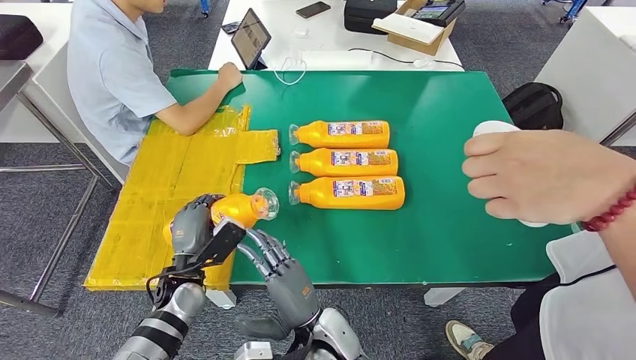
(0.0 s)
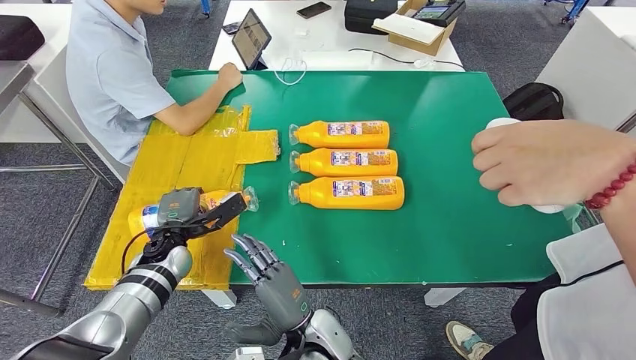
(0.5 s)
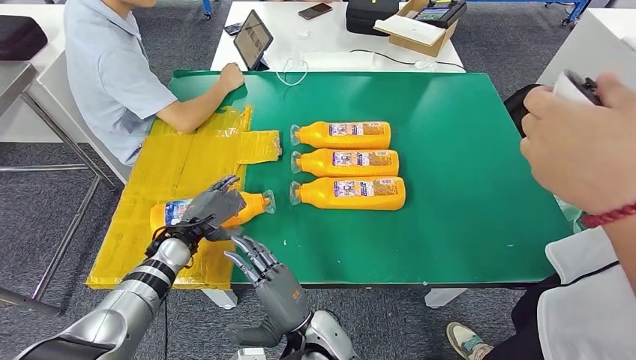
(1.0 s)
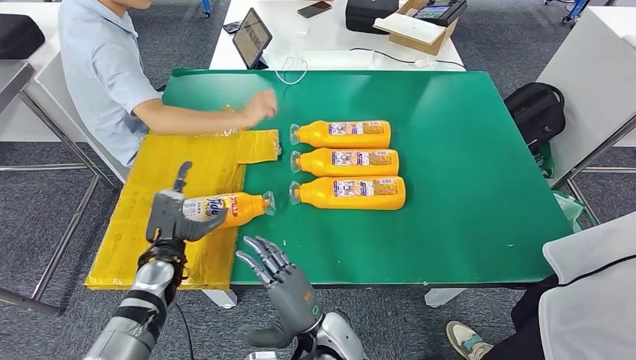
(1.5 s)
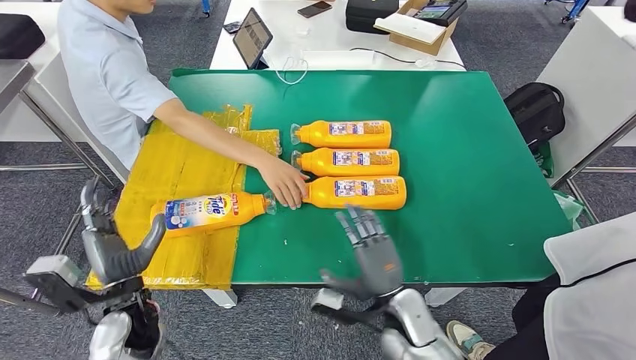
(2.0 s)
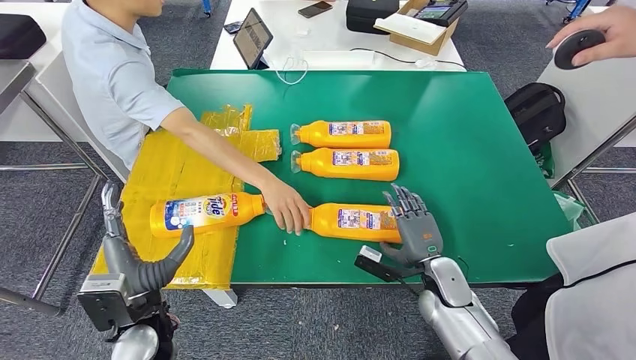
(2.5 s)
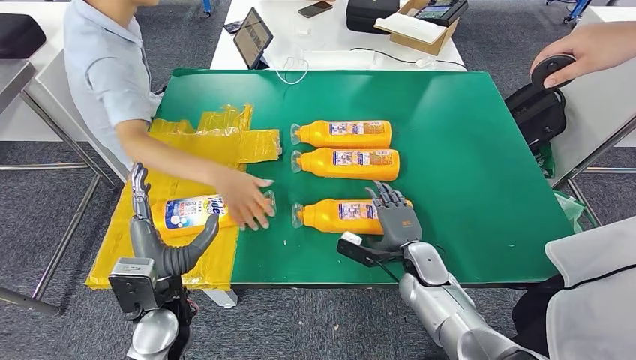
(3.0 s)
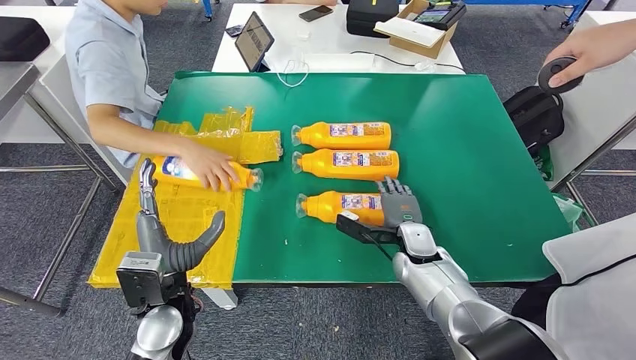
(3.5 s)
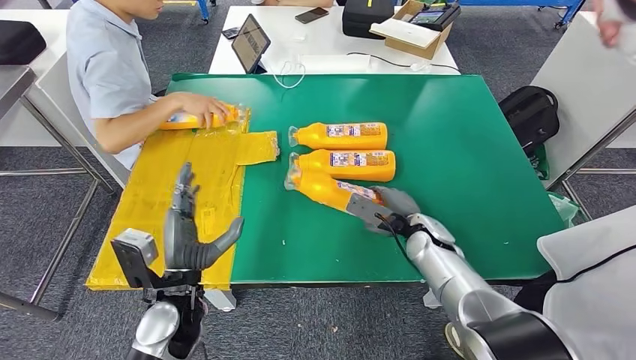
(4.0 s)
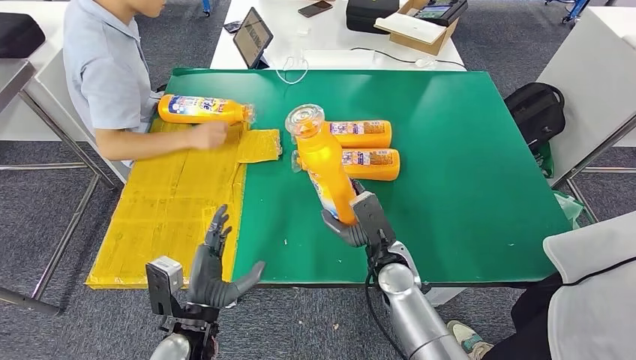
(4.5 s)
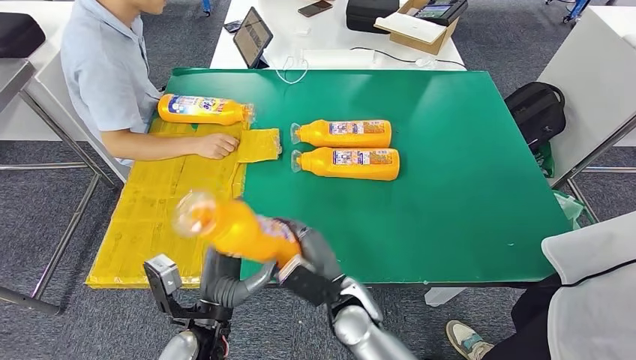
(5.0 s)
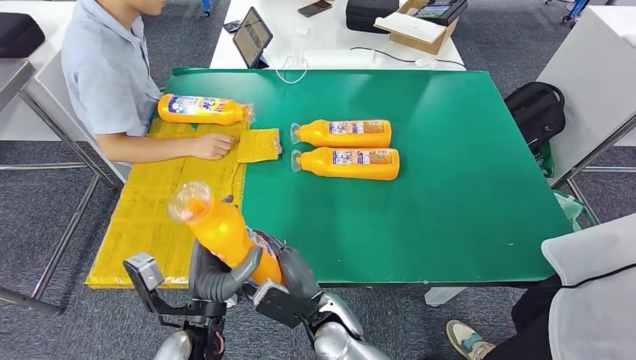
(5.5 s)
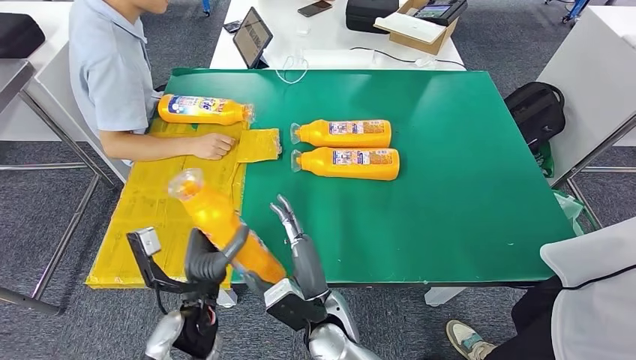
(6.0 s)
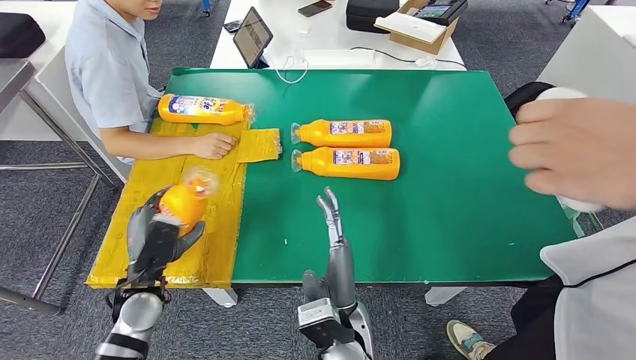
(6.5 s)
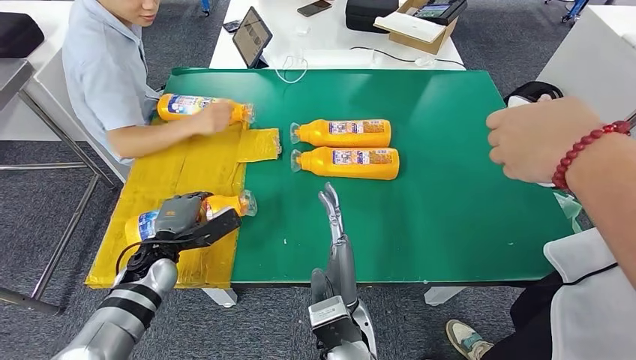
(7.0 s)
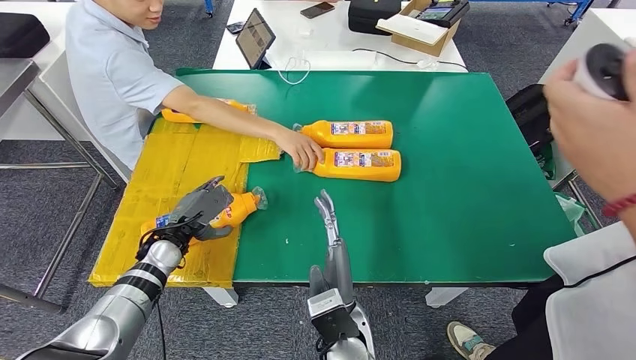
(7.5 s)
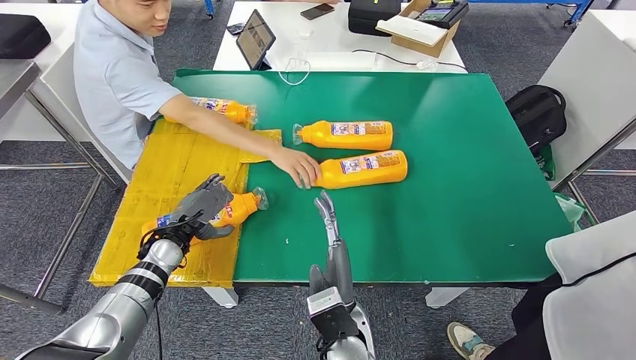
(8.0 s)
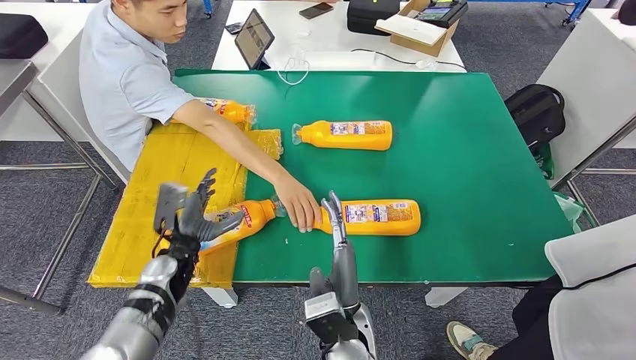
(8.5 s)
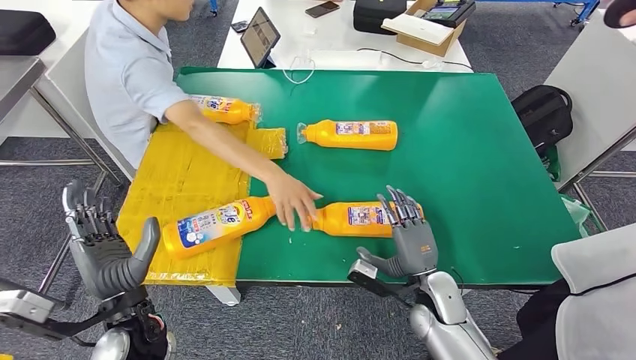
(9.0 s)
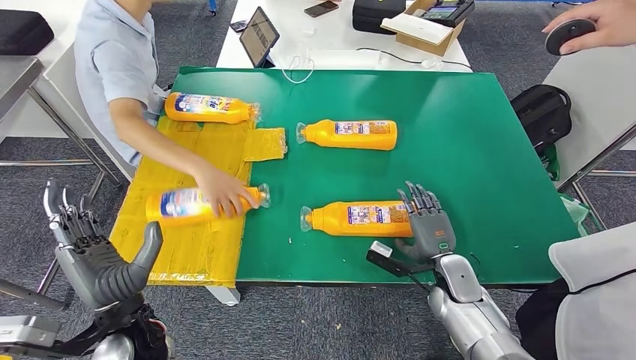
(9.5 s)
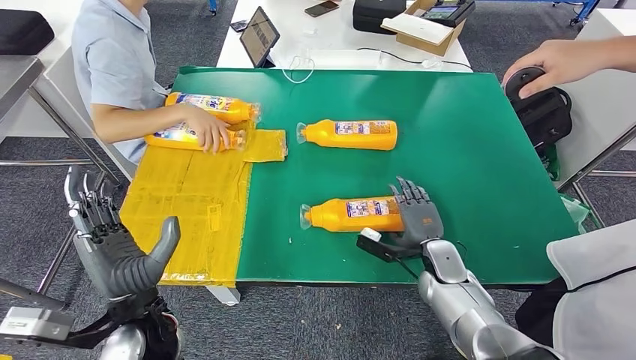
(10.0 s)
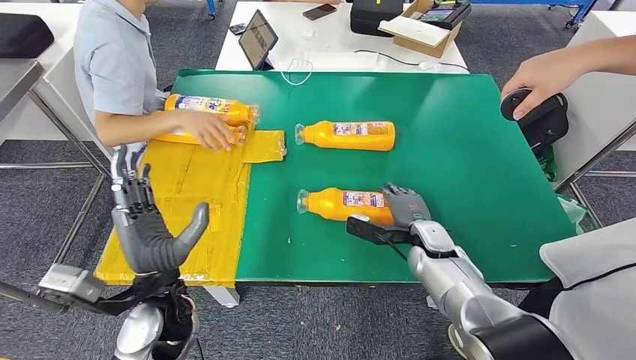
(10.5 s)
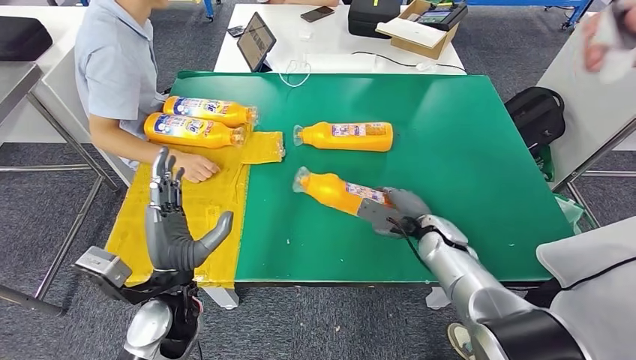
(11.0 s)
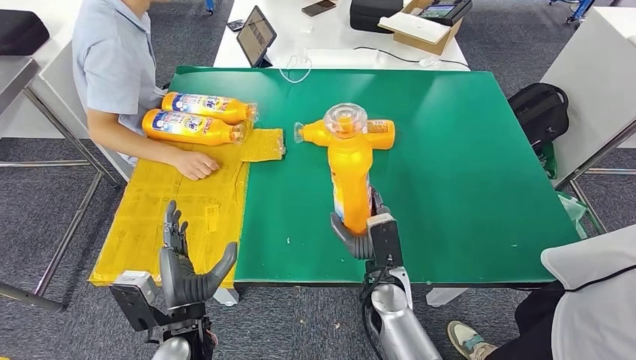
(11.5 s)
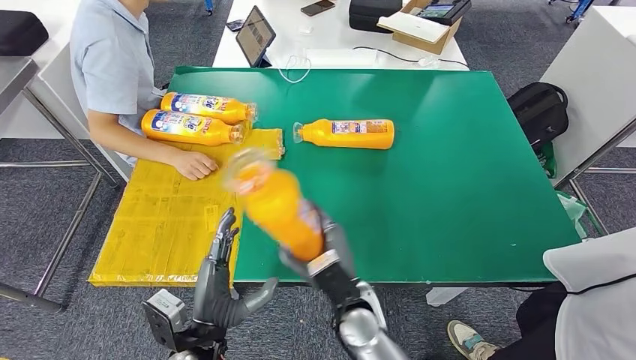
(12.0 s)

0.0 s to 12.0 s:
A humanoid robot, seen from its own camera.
Step, 0.0 to 2.5 s: Flip the fast-moving consumer goods bottle to the front side.
Step, 3.5 to 5.5 s: Pick up the fast-moving consumer goods bottle from the table.
Step, 6.0 to 8.5 s: Flip the fast-moving consumer goods bottle to the front side.

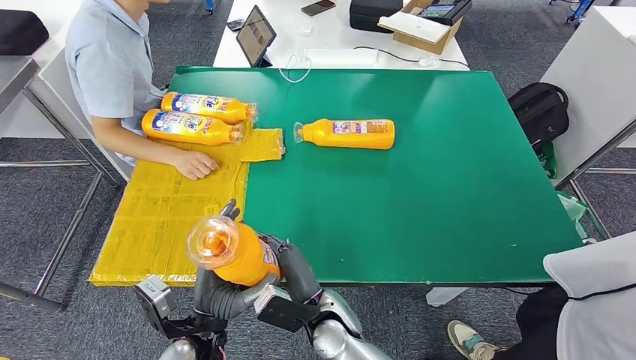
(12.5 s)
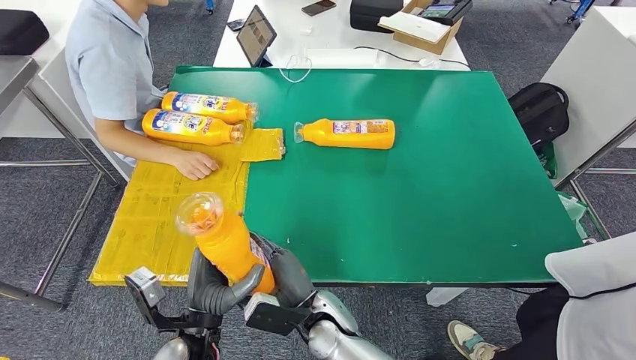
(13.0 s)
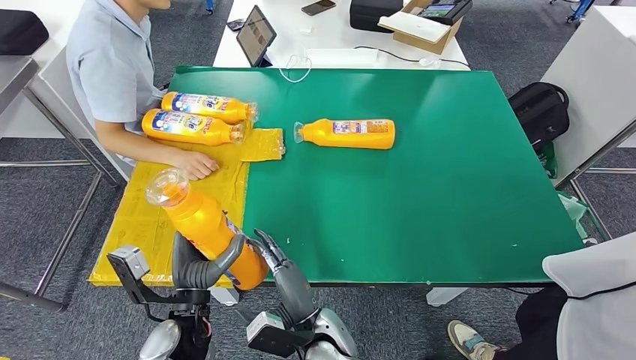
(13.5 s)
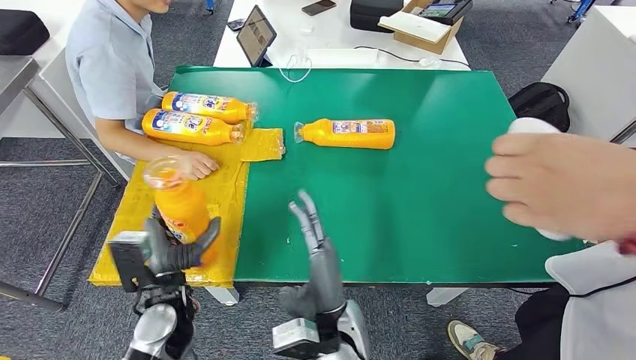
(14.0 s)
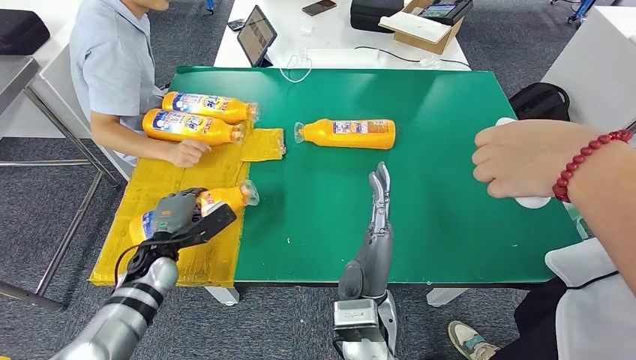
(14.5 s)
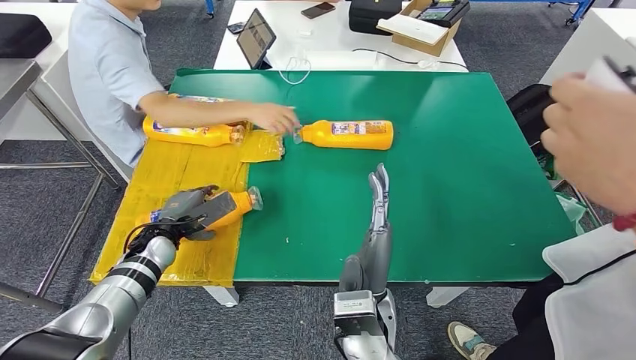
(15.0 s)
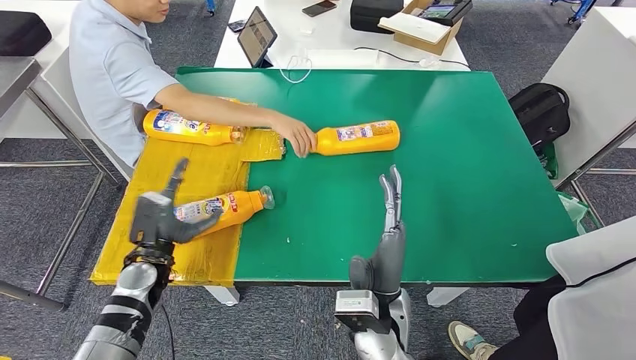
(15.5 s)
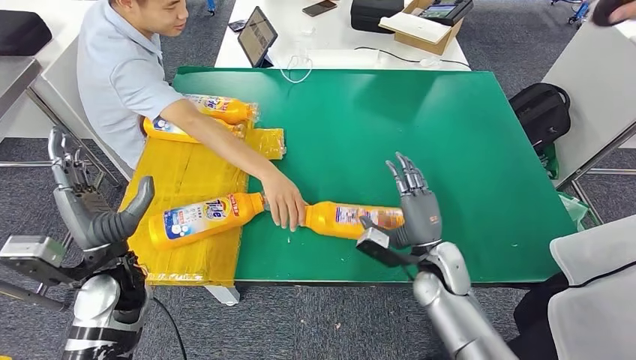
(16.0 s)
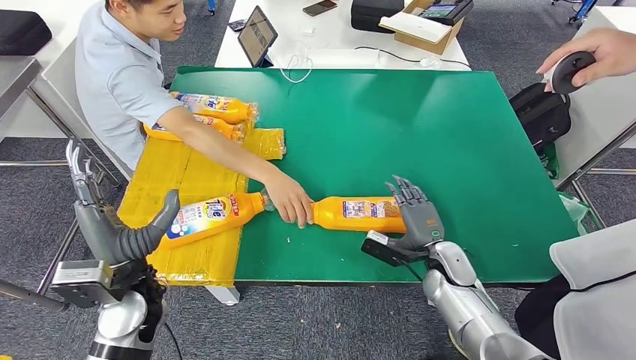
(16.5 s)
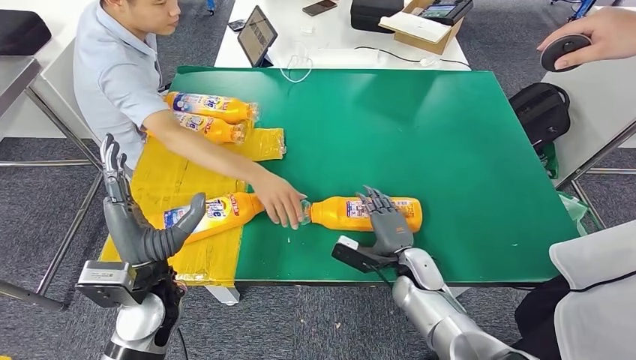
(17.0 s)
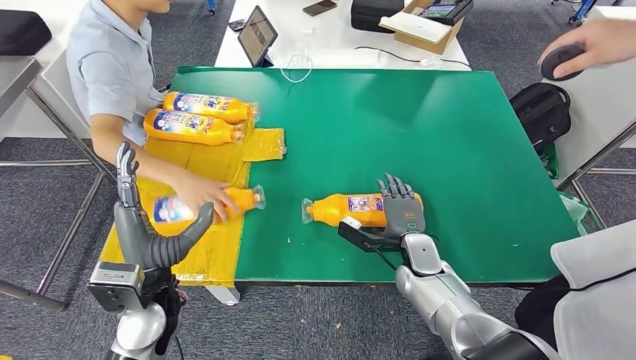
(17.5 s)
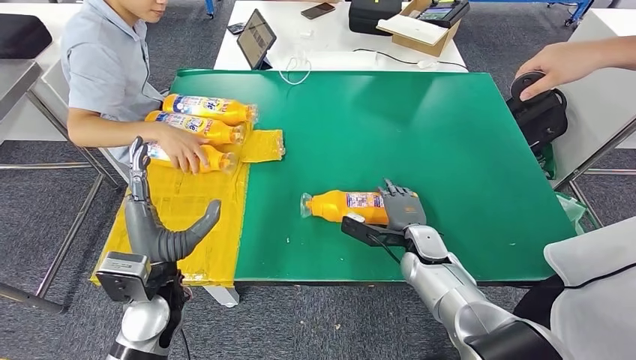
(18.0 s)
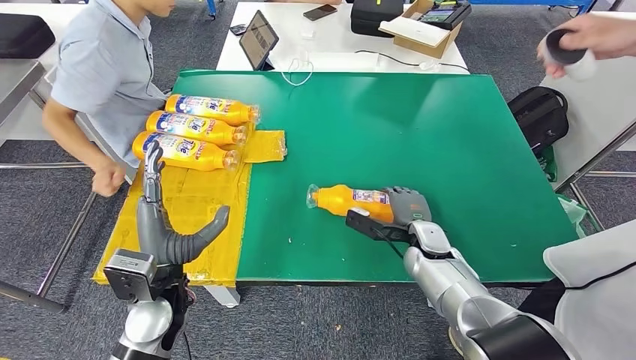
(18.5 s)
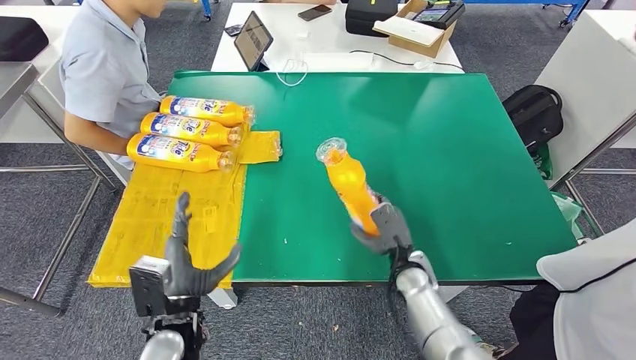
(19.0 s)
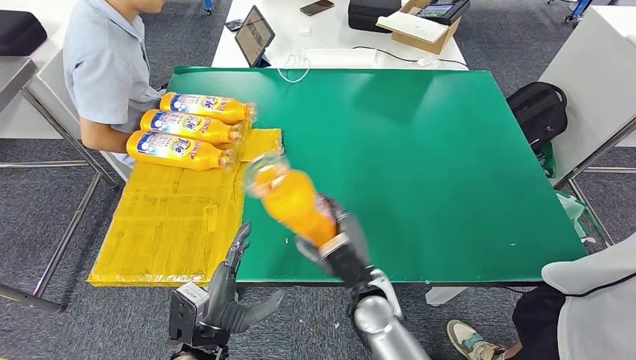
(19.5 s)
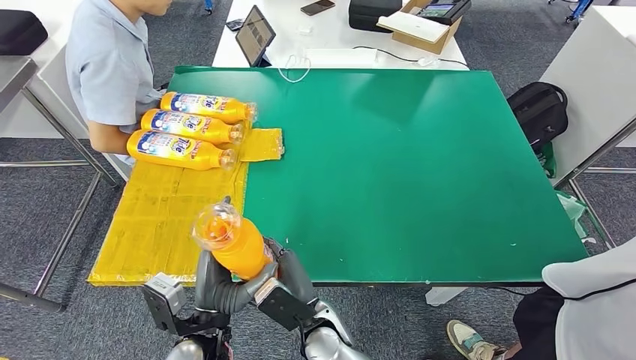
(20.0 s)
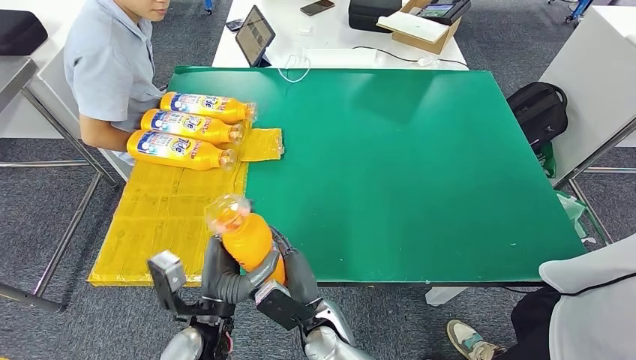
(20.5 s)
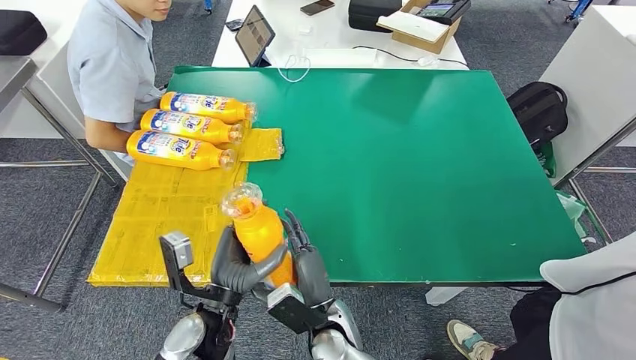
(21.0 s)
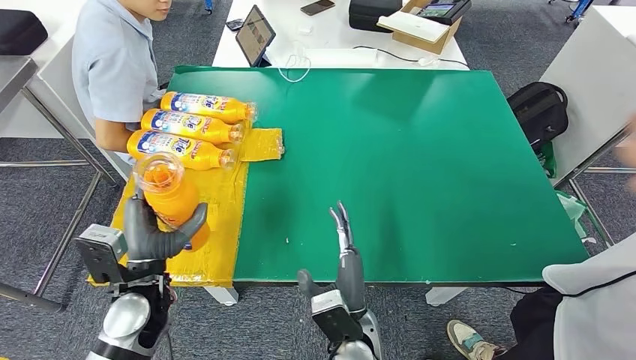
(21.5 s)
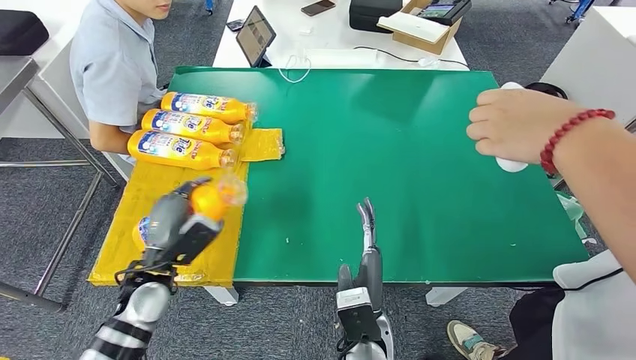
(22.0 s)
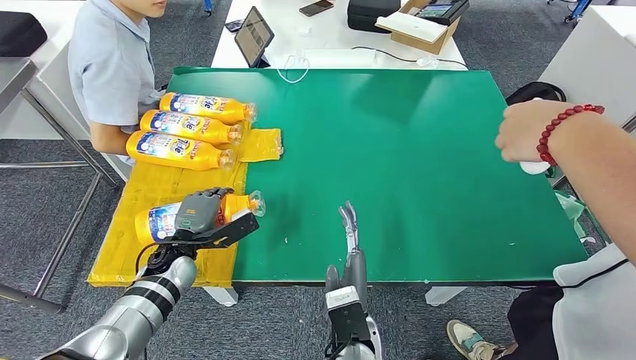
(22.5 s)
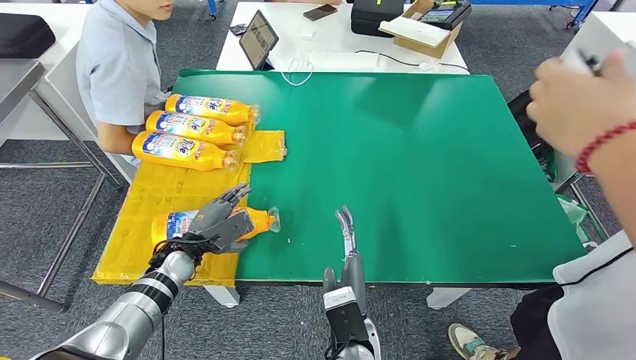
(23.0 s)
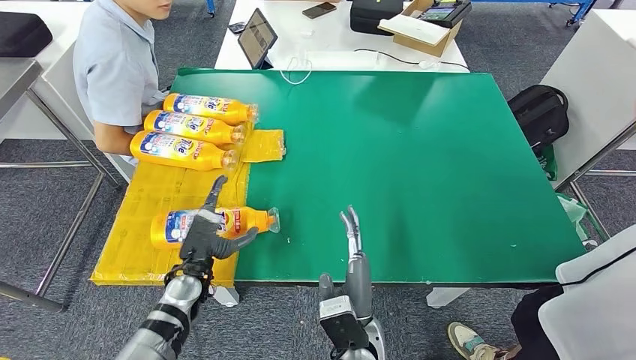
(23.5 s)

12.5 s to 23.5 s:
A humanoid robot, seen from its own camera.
Step, 13.0 to 16.5 s: Flip the fast-moving consumer goods bottle to the front side.
Step, 18.5 to 20.0 s: Pick up the fast-moving consumer goods bottle from the table.
Step, 21.0 to 23.5 s: Flip the fast-moving consumer goods bottle to the front side.
20.0 to 21.5 s: The right hand heads to the right, covering roughly 5 cm. Meanwhile the left hand heads to the left and forward, covering approximately 10 cm.
21.5 to 23.5 s: The left hand is displaced downward by roughly 10 cm.
